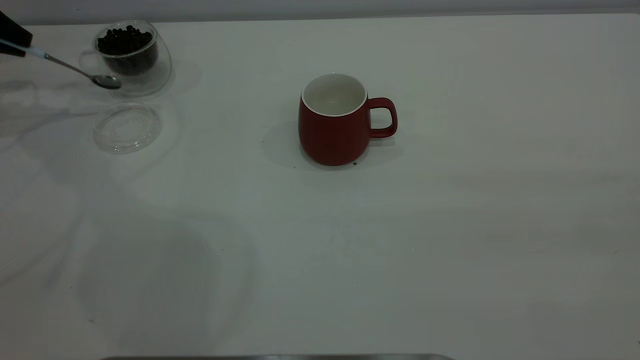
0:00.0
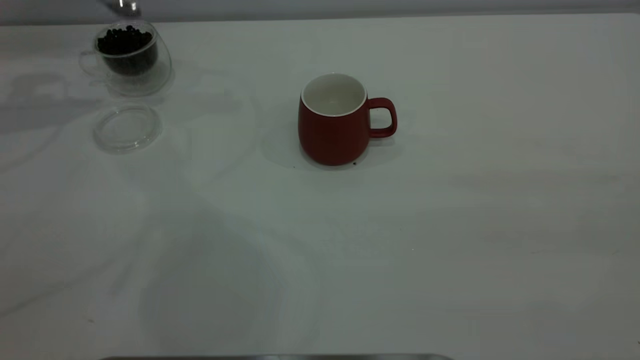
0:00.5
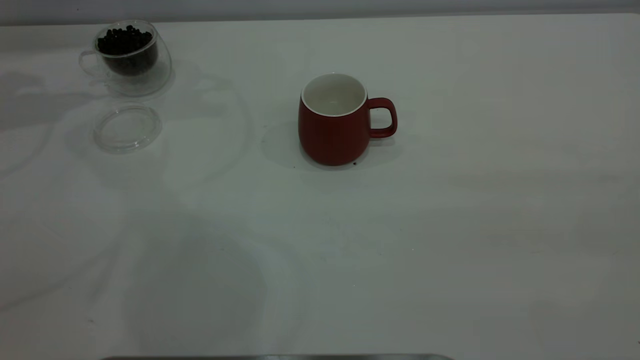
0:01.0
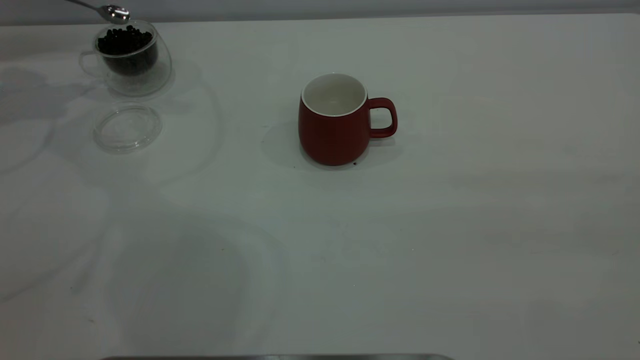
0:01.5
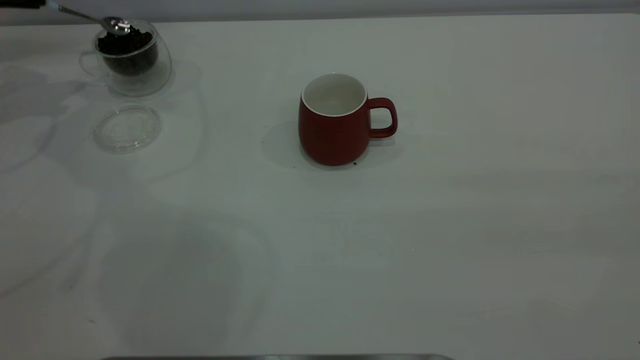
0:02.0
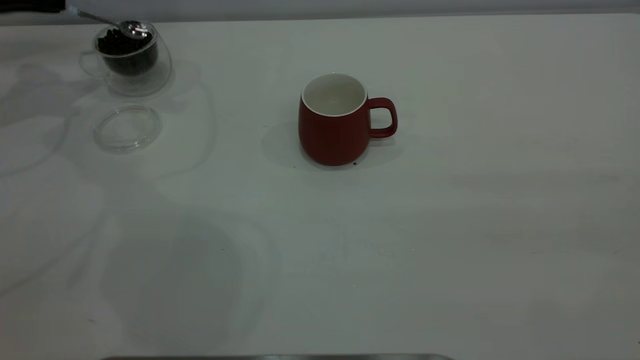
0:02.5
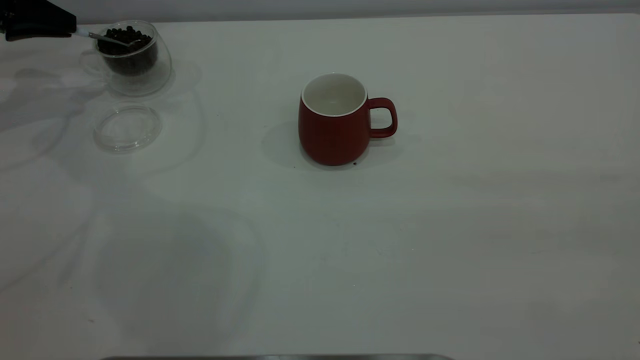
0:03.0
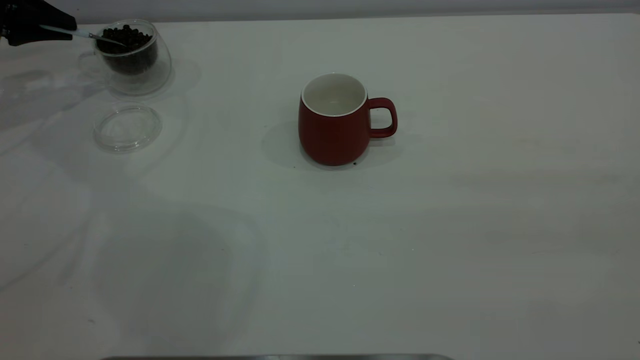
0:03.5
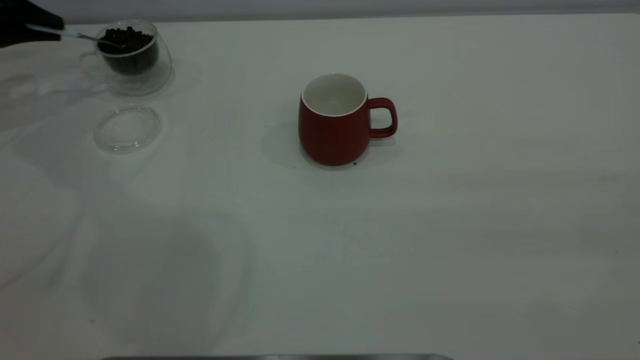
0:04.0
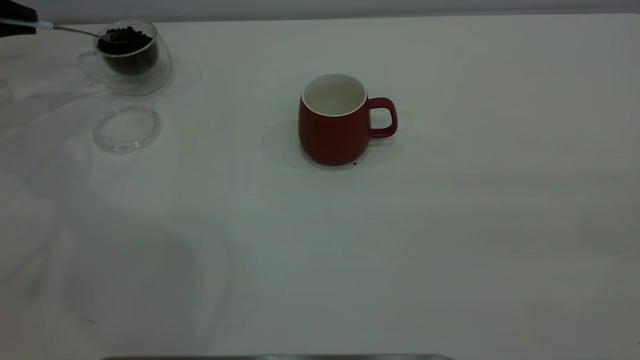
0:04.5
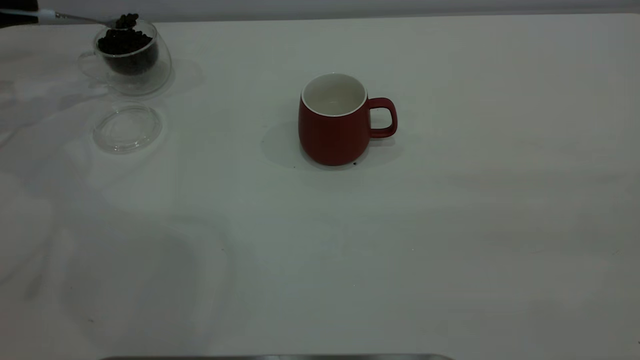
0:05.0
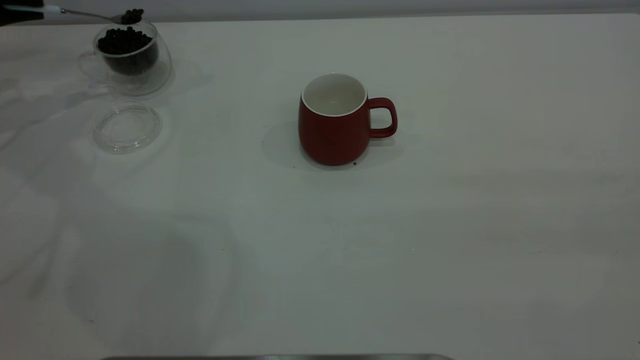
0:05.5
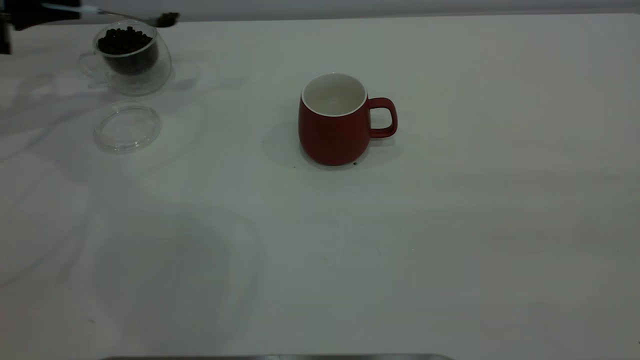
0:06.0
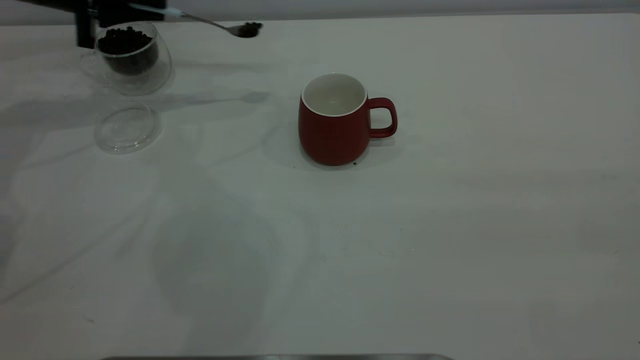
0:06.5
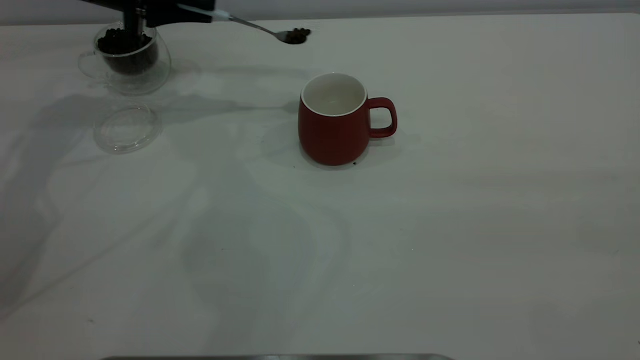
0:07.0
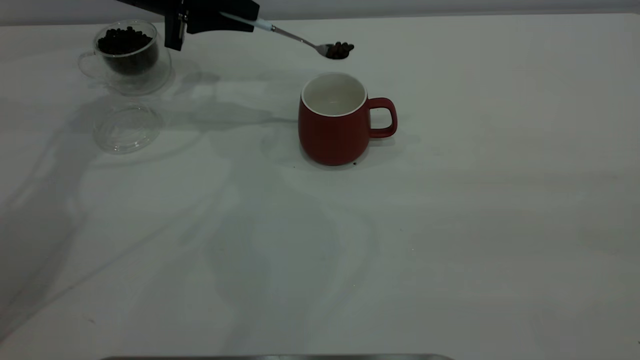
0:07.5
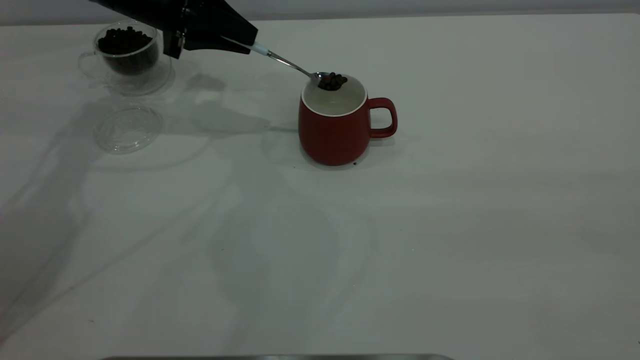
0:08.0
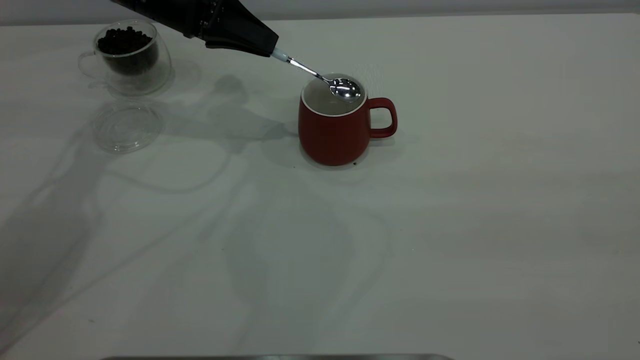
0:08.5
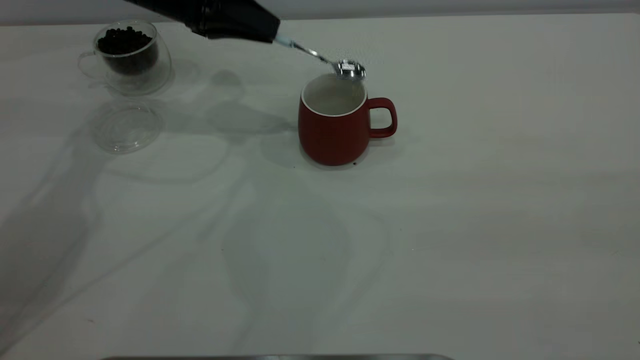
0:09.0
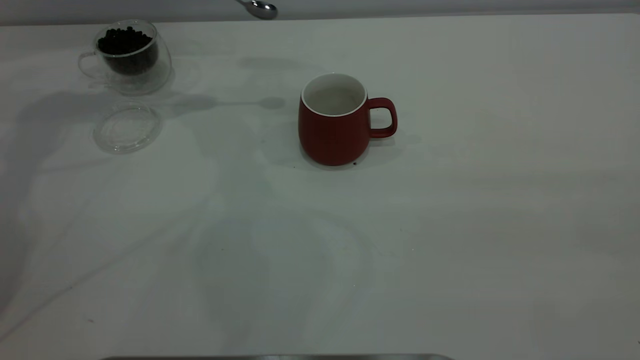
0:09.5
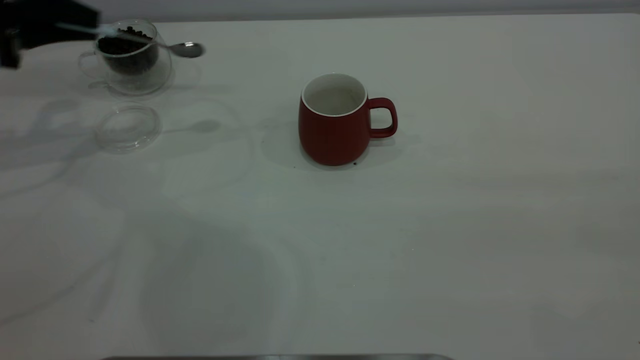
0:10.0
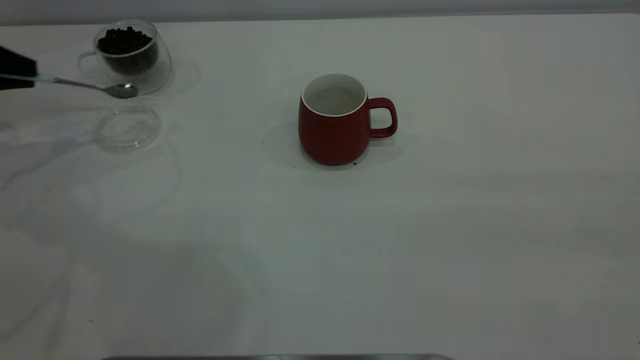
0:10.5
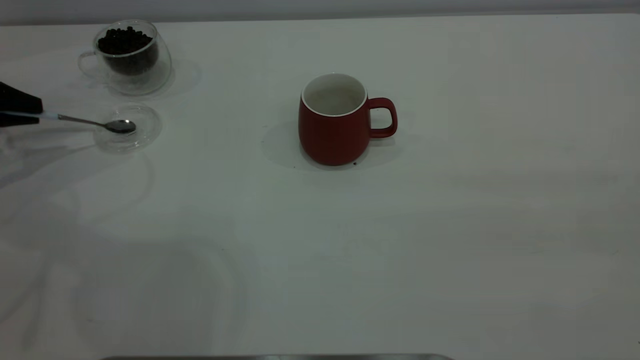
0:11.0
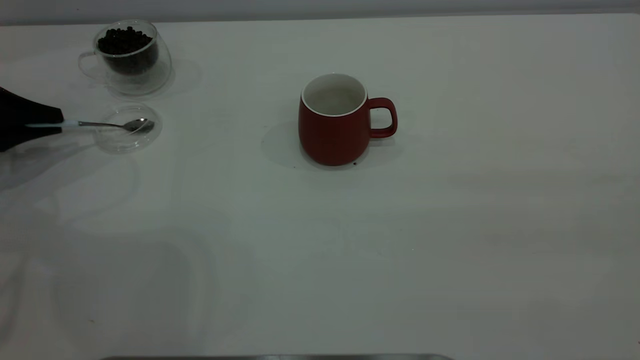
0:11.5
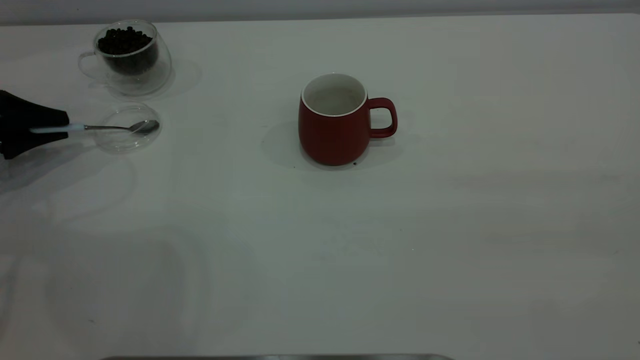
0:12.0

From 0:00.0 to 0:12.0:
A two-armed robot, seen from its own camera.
Task of the whole recording: the right gripper place the red cup in the center of the table, the left gripper take the blue spoon from the cup lid and scoop out the coffee beans from the coffee cup and put them into the red cup, the left gripper put the spoon back into the cup lid.
Step, from 0:00.0 to 0:09.0: Scoop a spoonful of beans into the cup.
From 0:00.0 to 0:02.0: The left gripper moves approximately 10 cm upward and comes back.
From 0:04.0 to 0:06.0: There are only small adjustments of the grippers.
From 0:06.0 to 0:08.0: The left gripper is displaced to the right by roughly 20 cm.
From 0:08.0 to 0:10.0: The left gripper travels to the left by some 15 cm.
From 0:10.0 to 0:12.0: The left gripper shifts some 15 cm downward and to the left.

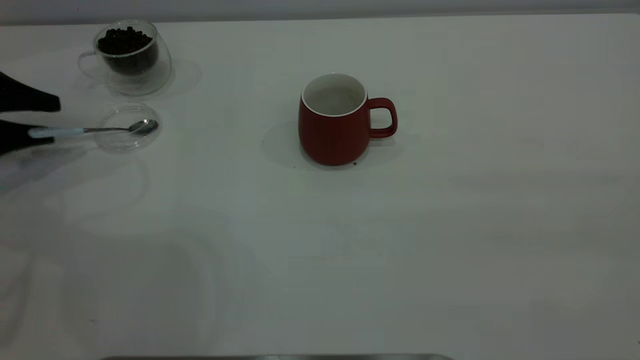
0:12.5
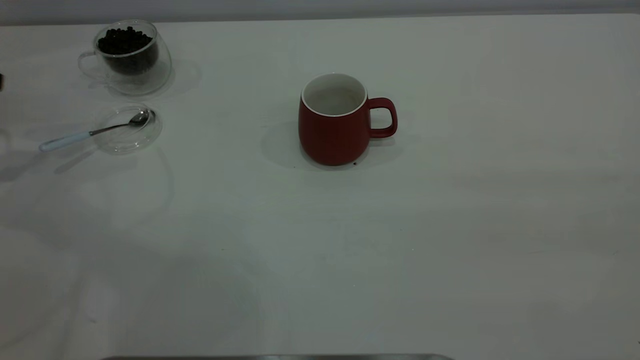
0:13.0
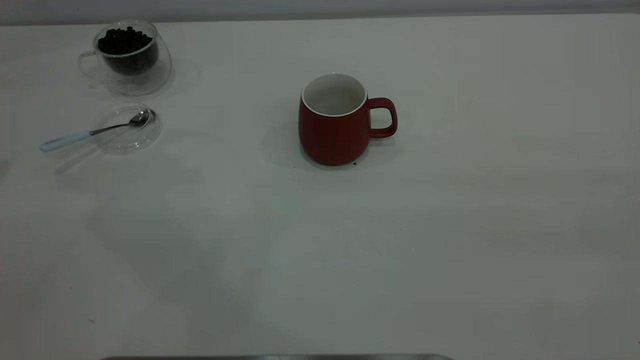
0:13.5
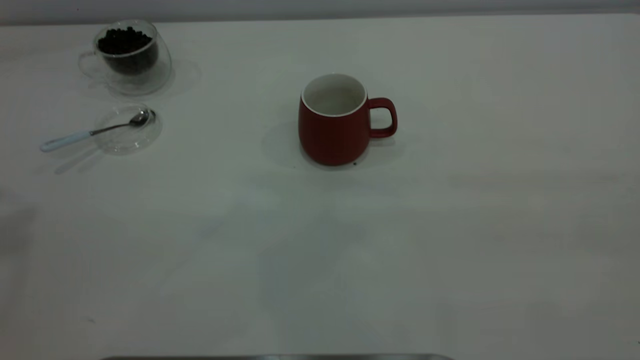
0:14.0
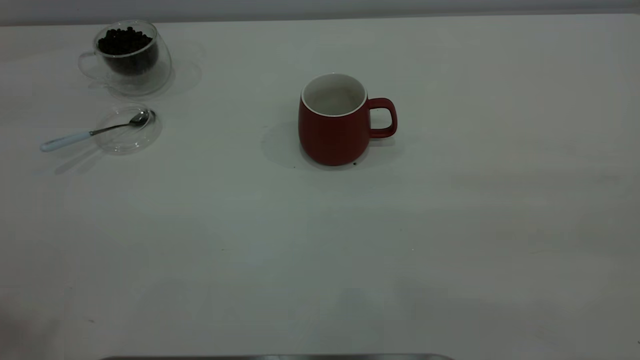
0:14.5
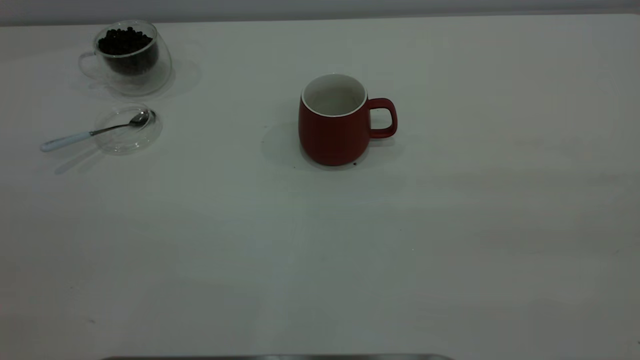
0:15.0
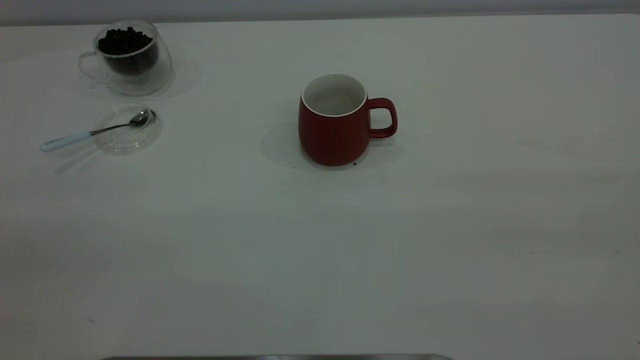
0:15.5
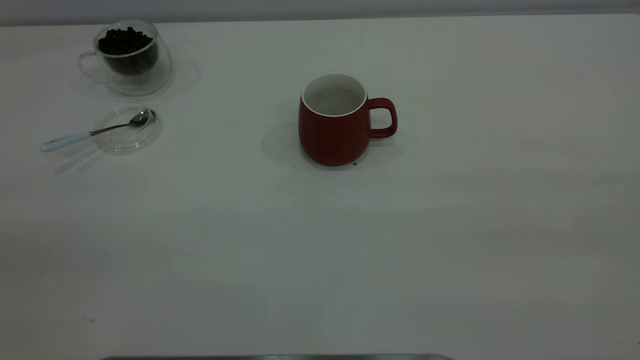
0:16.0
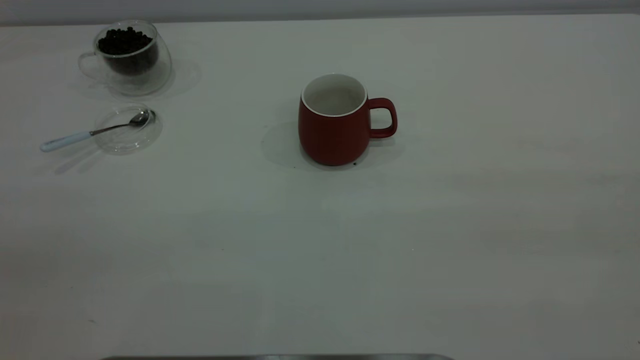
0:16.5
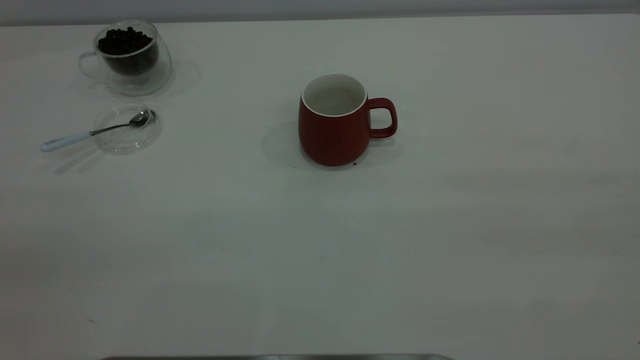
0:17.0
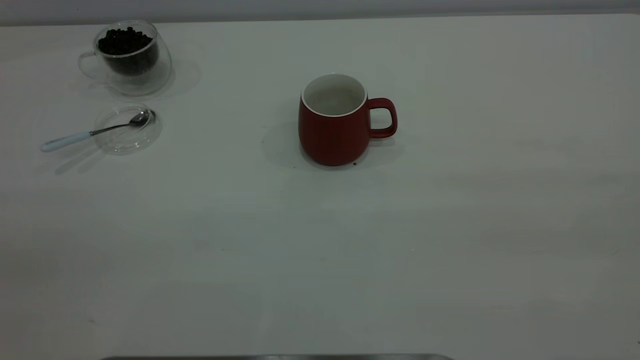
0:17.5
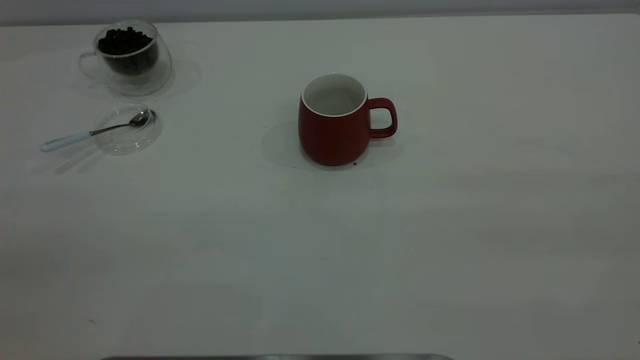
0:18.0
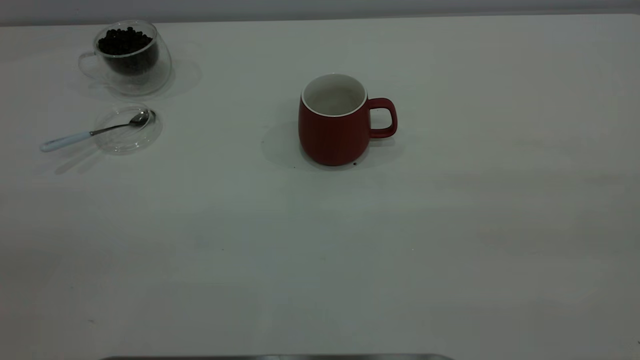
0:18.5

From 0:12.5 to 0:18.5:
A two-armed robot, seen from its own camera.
Task of the whole recording: the right gripper place the red cup in the center of the table, the left gripper take the blue spoon from the cup lid and scoop out the coffee beans from the coffee cup and put them into the red cup, the left gripper put the spoon back into the cup lid.
From 0:12.5 to 0:14.5: The left gripper moves upward and backward, about 50 cm.
From 0:16.5 to 0:18.5: Both grippers stay about where they are.
